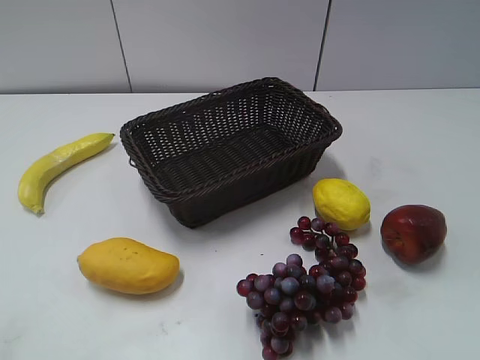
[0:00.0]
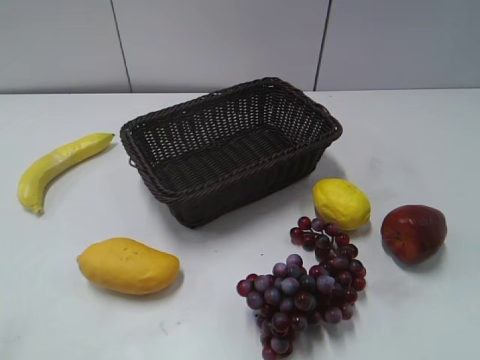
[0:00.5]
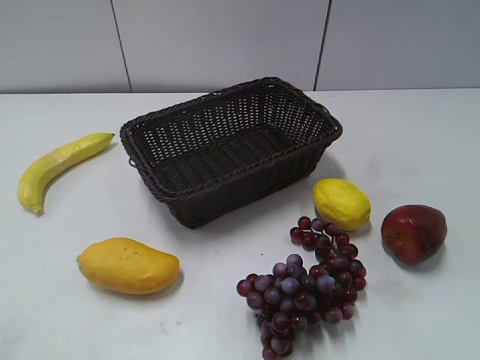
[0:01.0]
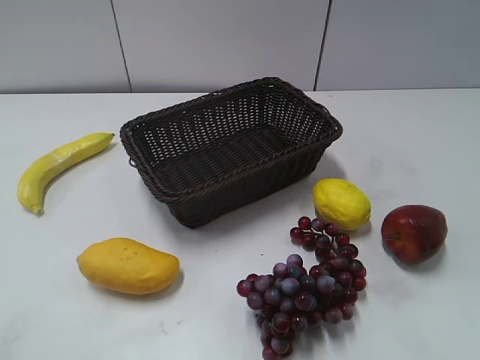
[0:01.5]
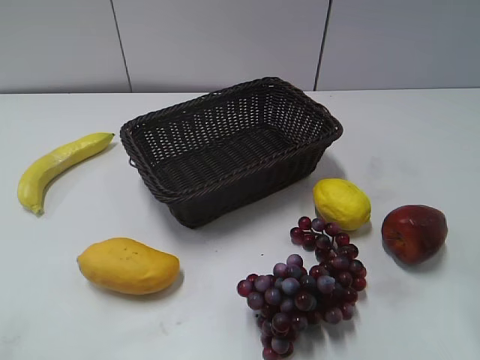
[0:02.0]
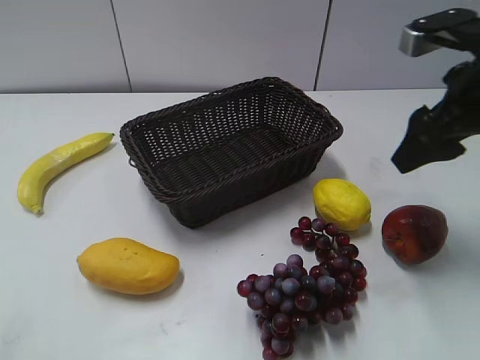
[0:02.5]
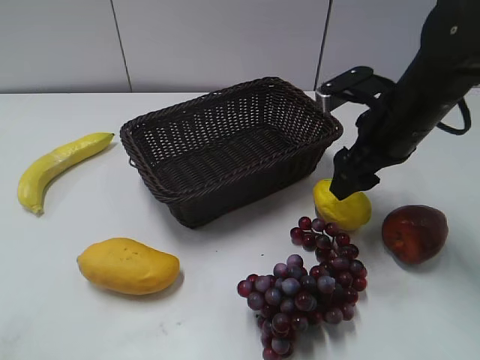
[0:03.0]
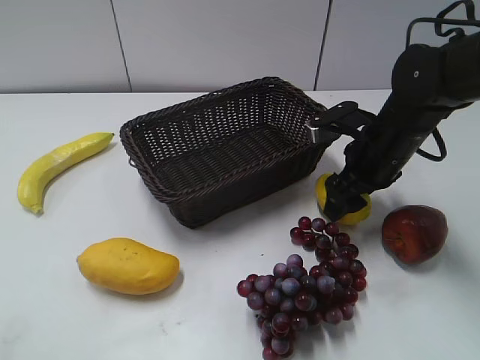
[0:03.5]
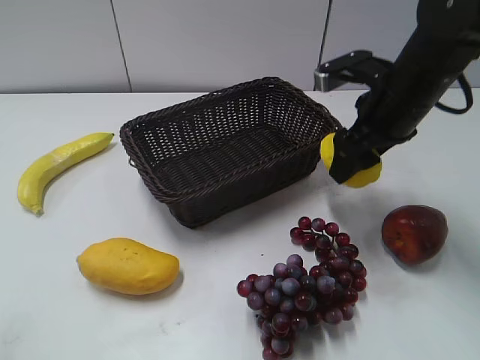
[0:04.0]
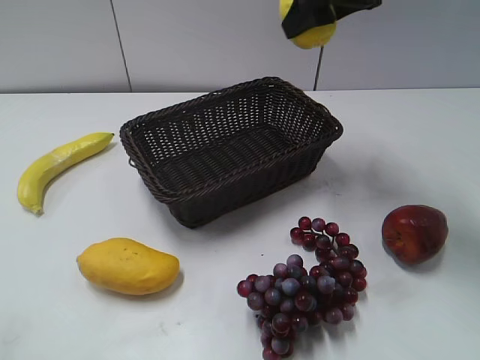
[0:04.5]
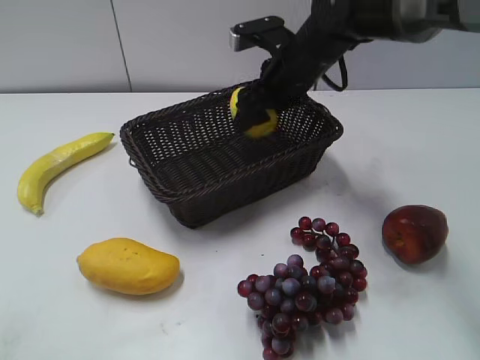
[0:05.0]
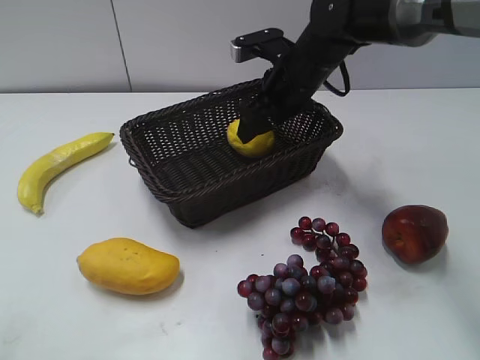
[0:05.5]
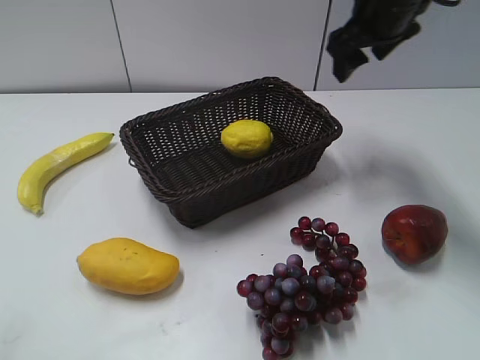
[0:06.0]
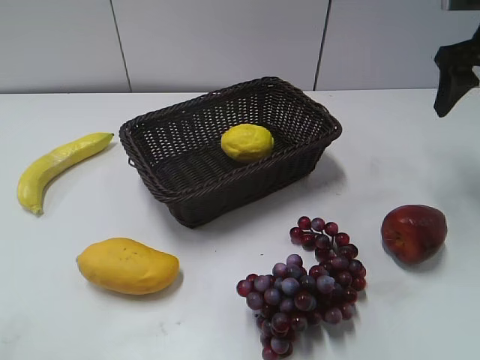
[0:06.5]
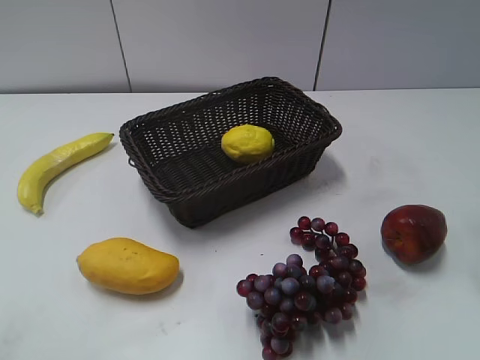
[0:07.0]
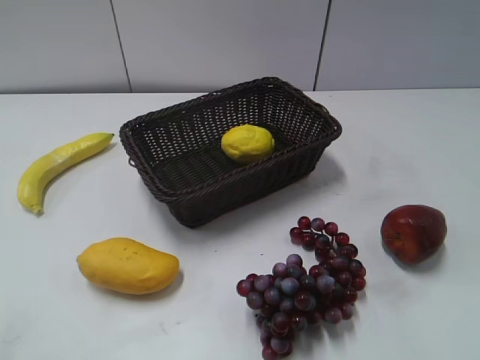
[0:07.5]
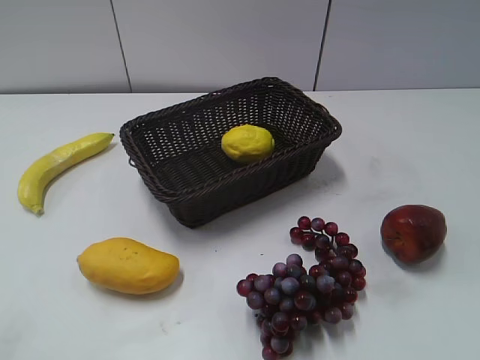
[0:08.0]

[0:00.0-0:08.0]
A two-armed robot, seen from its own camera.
Step, 0:02.5 to 0:03.5: Grasp the lemon with right gripper.
Step, 0:04.0 to 0:05.5: Place the lemon in the basket with right gripper.
0:02.0 to 0:04.0: The right gripper goes some 20 cm forward, to the left and downward.
0:04.0 to 0:06.0: The right gripper goes up and down, roughly 15 cm each way, reversing 2 times.
0:06.0 to 0:08.0: The right gripper is displaced backward by some 40 cm.

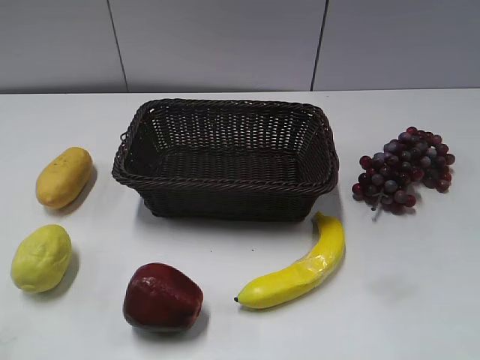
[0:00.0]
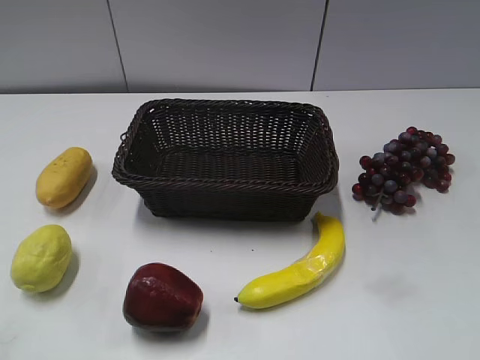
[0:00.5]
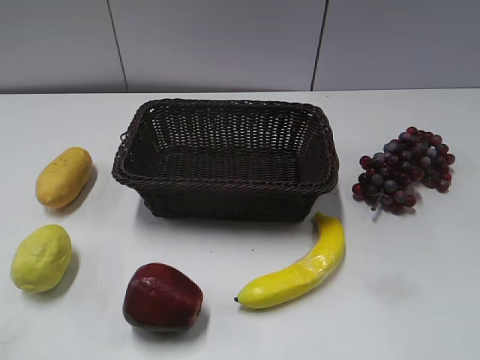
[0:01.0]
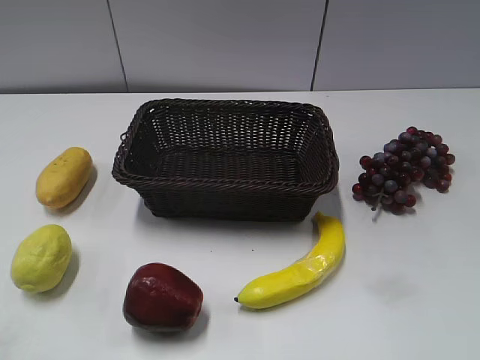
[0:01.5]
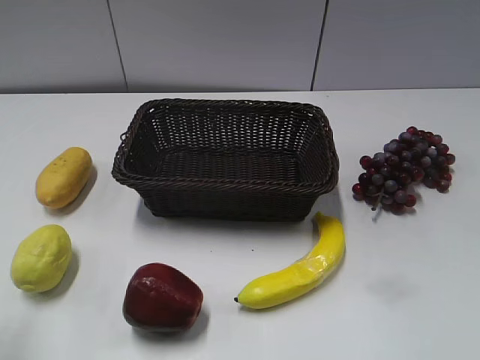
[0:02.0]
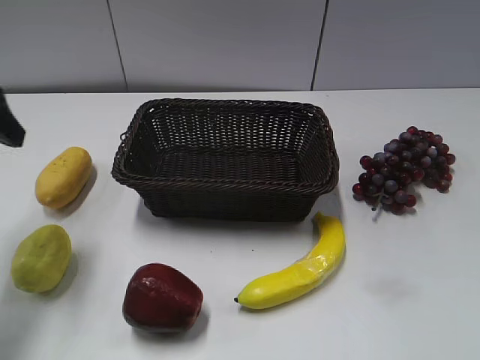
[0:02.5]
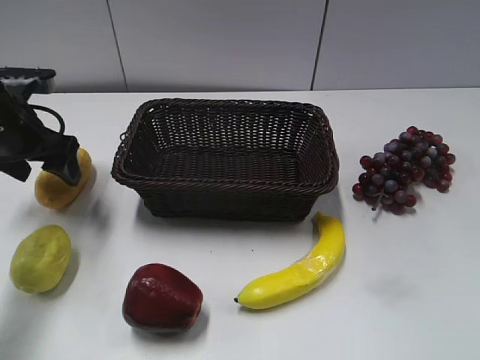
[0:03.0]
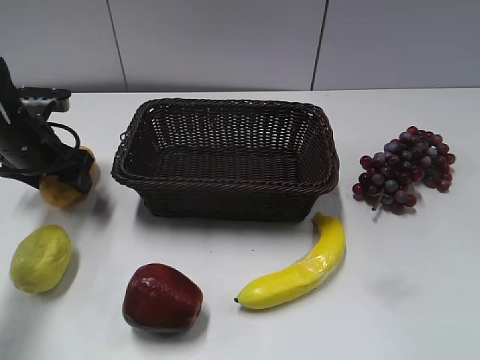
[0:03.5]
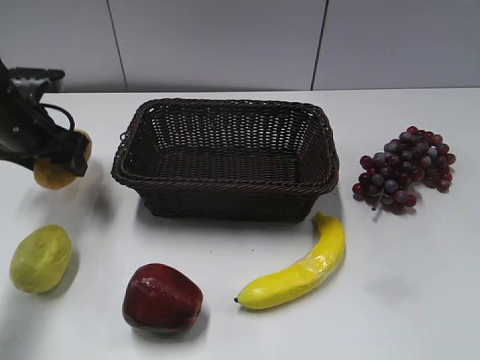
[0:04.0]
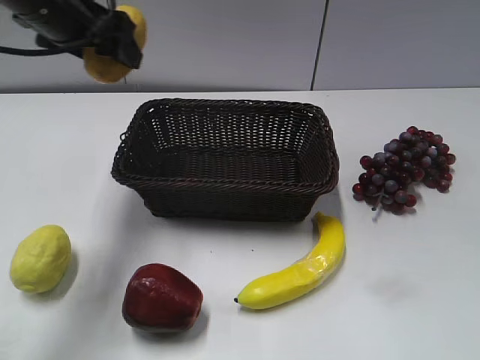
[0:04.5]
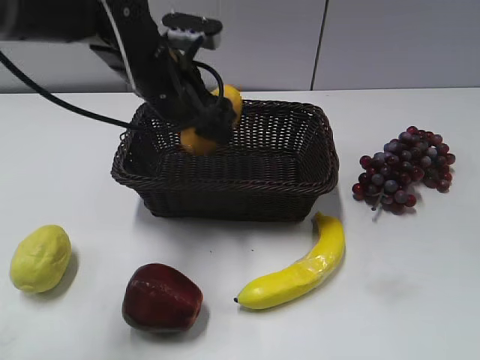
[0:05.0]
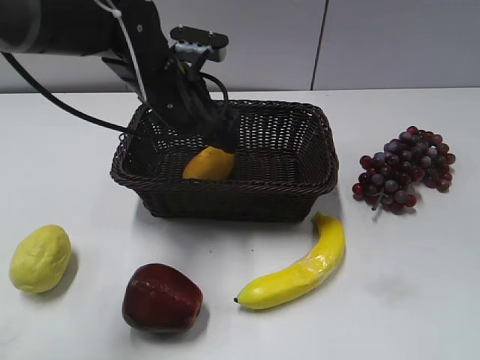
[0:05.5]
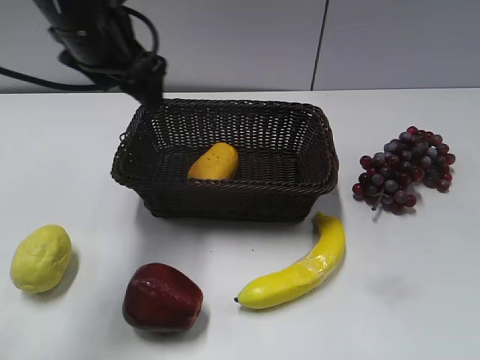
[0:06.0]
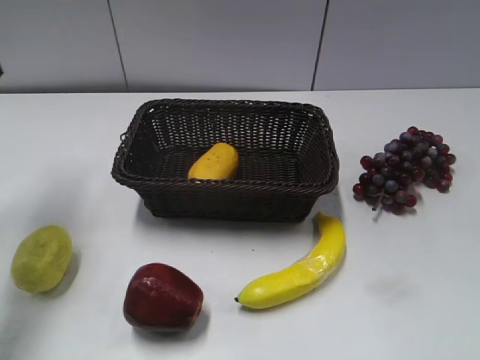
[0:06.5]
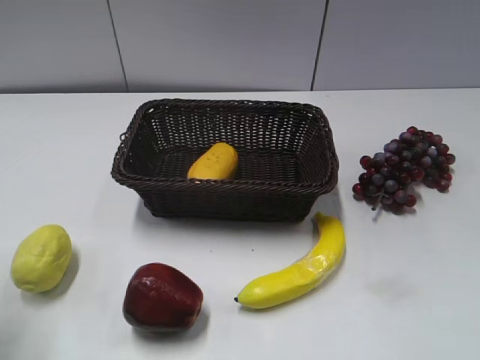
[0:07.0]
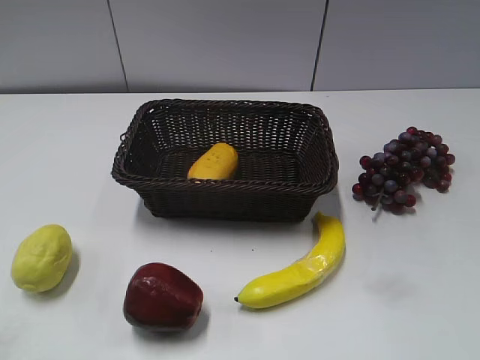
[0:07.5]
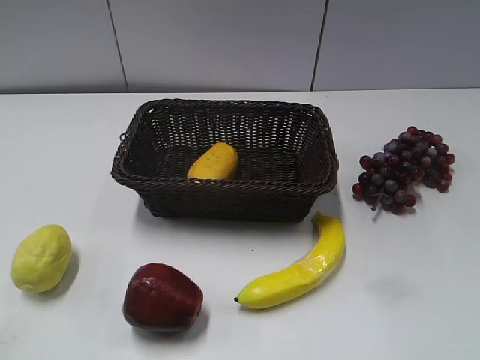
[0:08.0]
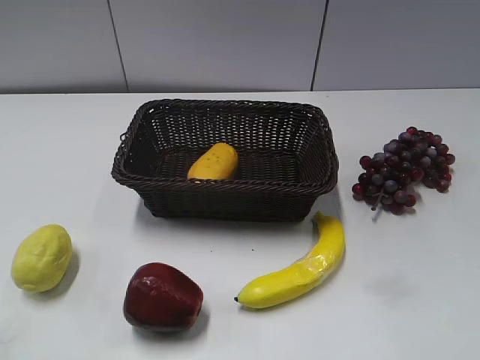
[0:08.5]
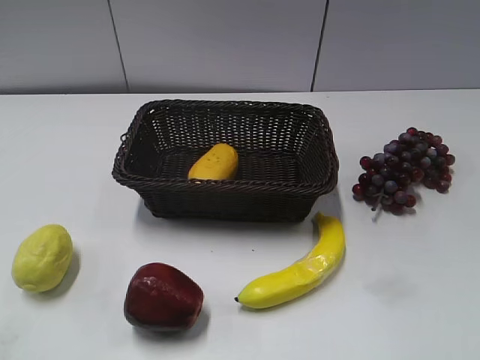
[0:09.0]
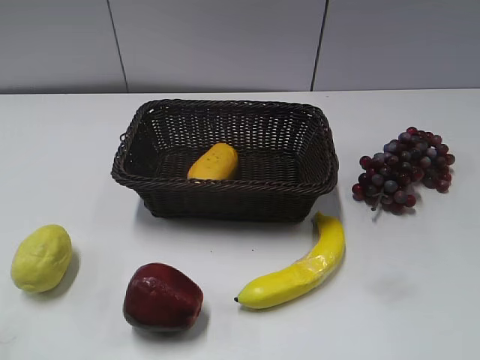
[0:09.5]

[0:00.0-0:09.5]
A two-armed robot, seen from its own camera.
Step, 0:02.5 to 0:03.5: Grasp the mango with left gripper.
Step, 0:04.0 to 0:05.0: Place the mango in the basket with left gripper.
0:02.0 to 0:04.0: The left gripper is displaced forward and downward by about 30 cm, and closes its fingers.
0:04.0 to 0:05.5: The left gripper heads to the right, covering approximately 20 cm, and opens up.
0:05.5 to 0:07.5: The left gripper shifts some 40 cm backward and to the left, and closes its fingers.
